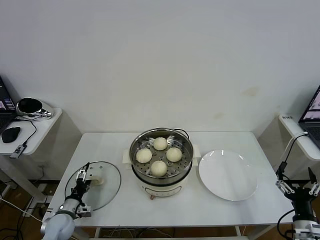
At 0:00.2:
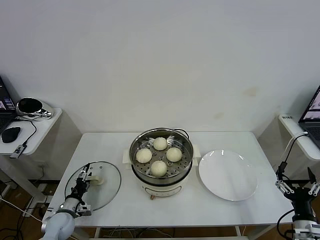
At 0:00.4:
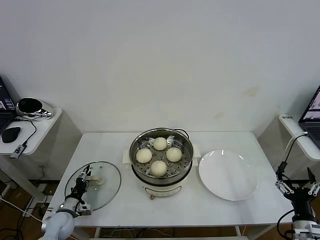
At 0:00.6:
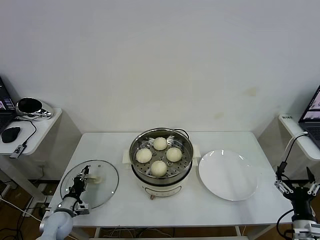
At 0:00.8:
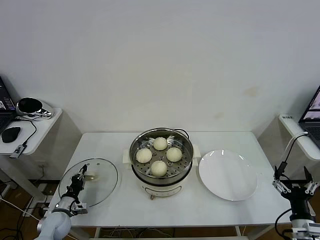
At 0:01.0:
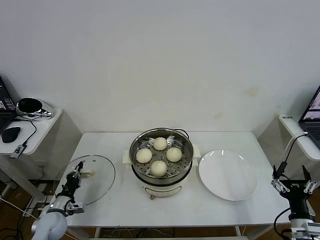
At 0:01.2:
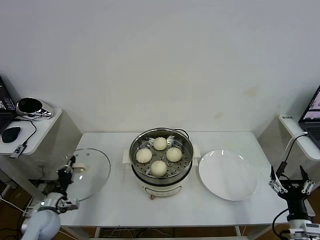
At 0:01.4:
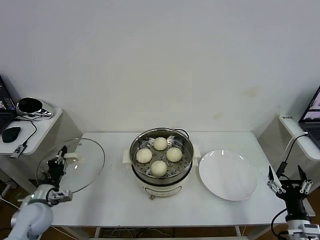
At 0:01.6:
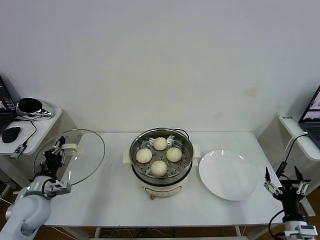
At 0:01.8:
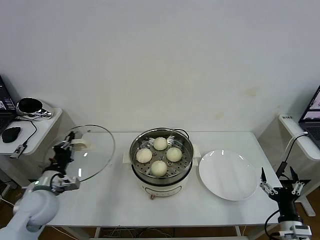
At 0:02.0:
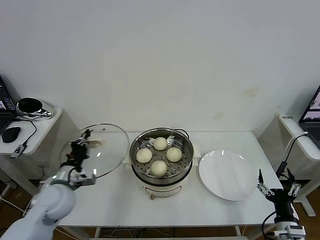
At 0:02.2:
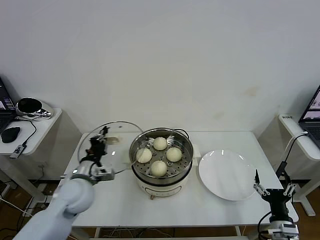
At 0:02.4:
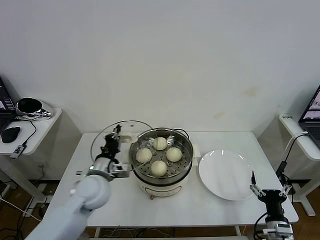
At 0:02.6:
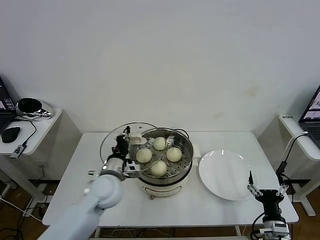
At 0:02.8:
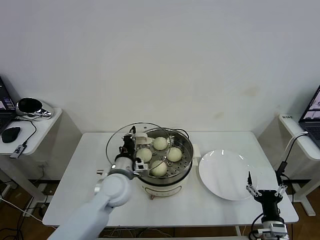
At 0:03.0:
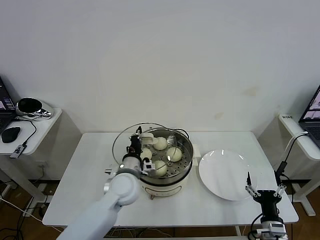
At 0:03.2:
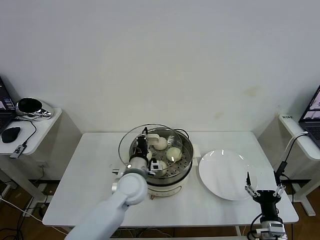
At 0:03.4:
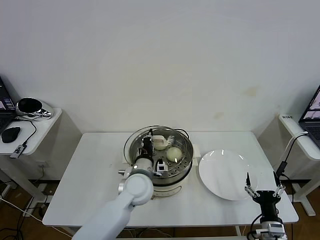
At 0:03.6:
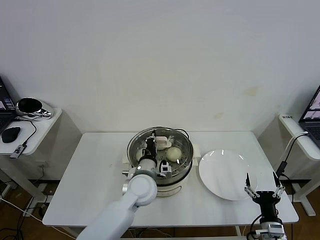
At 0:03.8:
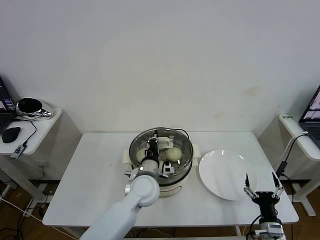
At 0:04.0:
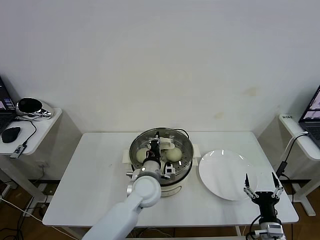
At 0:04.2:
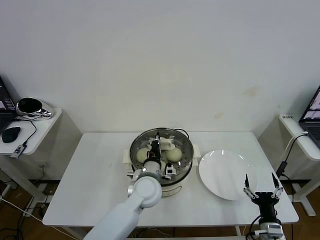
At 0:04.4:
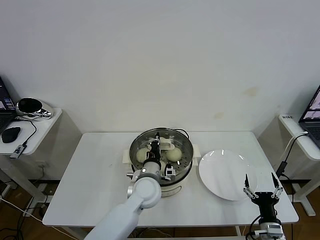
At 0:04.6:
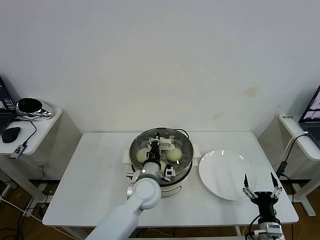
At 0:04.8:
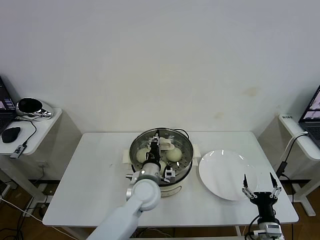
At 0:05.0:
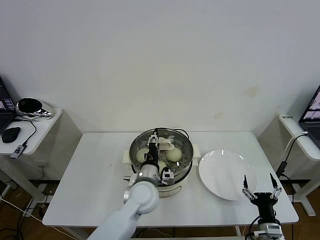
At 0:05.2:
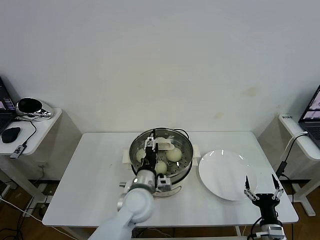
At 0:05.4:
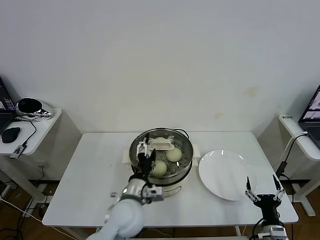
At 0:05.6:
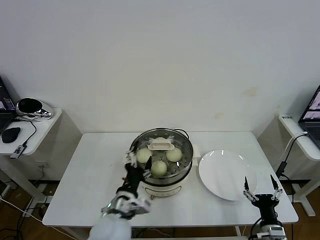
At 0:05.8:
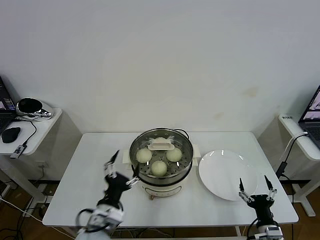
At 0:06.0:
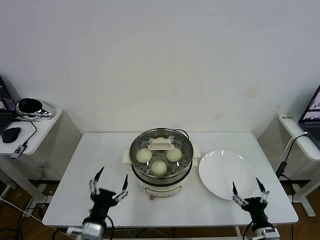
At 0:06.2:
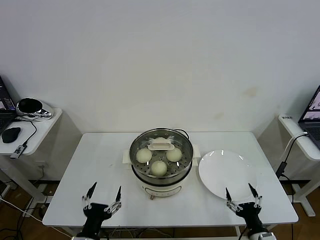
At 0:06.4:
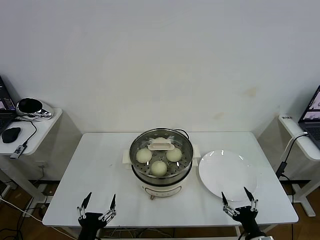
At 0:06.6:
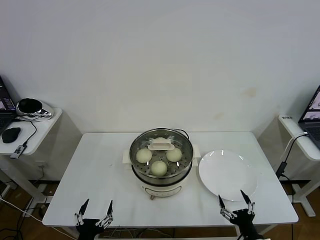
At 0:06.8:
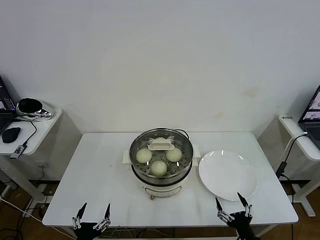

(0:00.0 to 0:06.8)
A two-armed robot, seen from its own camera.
Task of the whole recording: take steamed baozi put them in steamer then cover it.
Step, 0:01.0 - 0:05.4: Place the pot lid on the steamer with left gripper.
0:00.0 - 0:01.4: The left gripper travels upward by roughly 10 cm, and closes its fingers.
0:01.4 - 0:02.8: The left gripper is displaced to the right by approximately 25 cm, while the right gripper shifts about 5 cm to the left.
0:02.8 - 0:04.0: The left gripper travels to the right by roughly 10 cm.
0:04.0 - 0:05.4: The left gripper moves backward, roughly 5 cm, and opens.
0:05.4 - 0:06.8: The right gripper goes about 5 cm to the left, while the left gripper travels backward, to the left and downward by some 25 cm.
